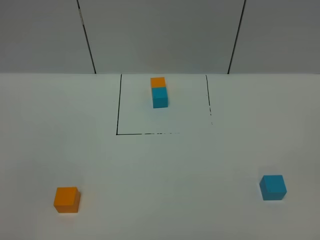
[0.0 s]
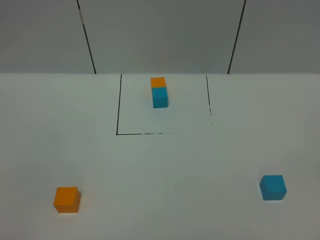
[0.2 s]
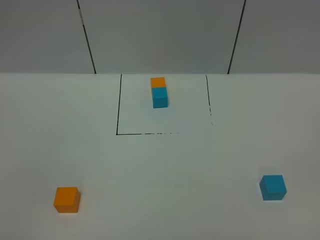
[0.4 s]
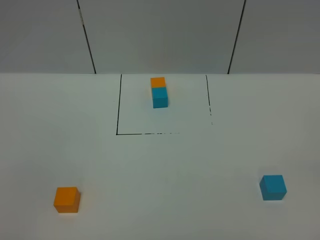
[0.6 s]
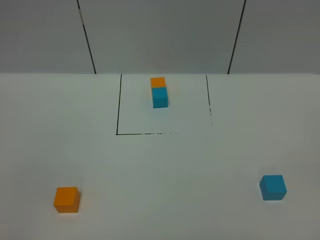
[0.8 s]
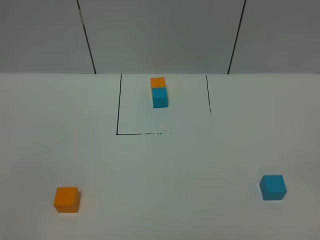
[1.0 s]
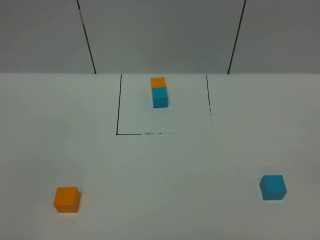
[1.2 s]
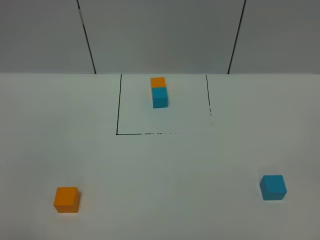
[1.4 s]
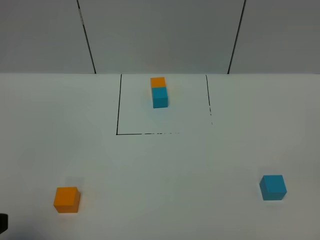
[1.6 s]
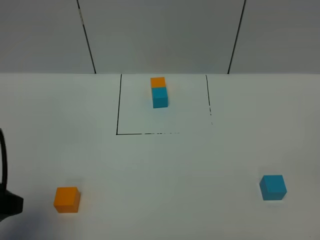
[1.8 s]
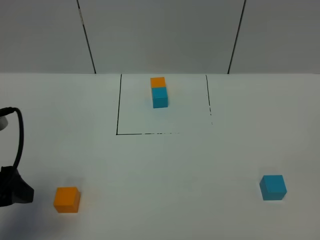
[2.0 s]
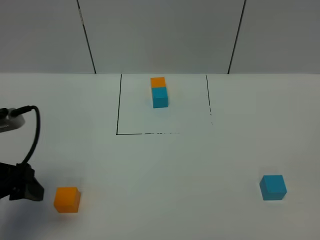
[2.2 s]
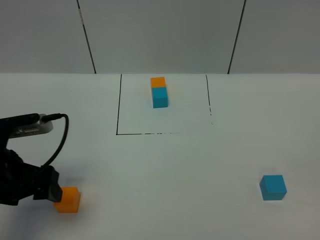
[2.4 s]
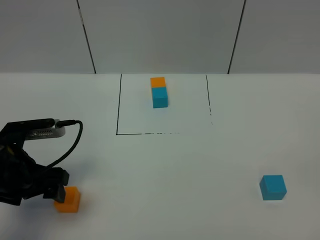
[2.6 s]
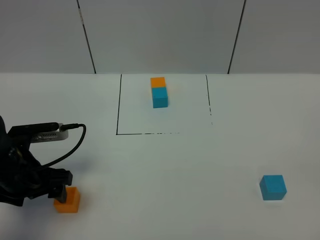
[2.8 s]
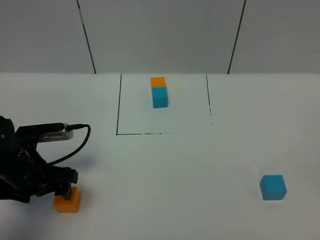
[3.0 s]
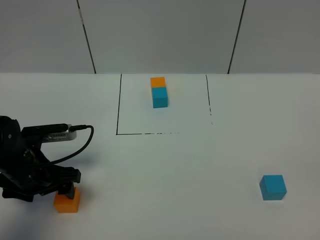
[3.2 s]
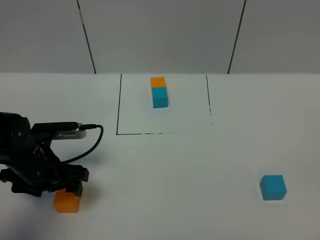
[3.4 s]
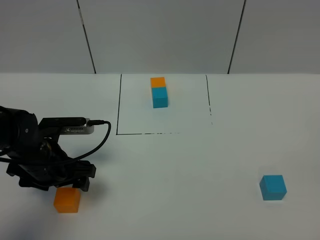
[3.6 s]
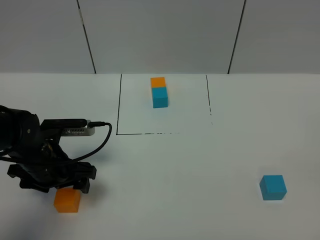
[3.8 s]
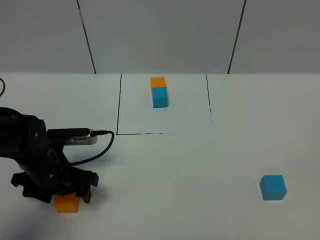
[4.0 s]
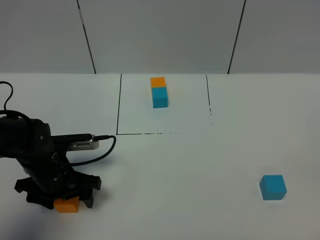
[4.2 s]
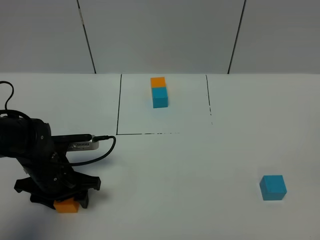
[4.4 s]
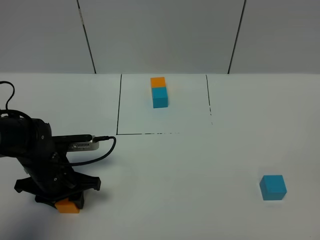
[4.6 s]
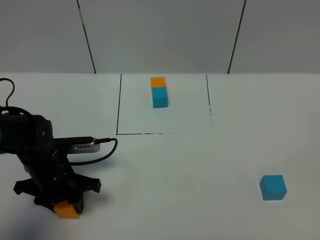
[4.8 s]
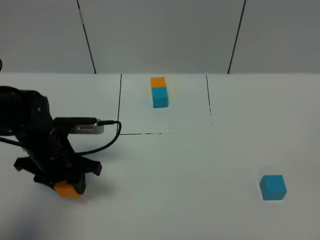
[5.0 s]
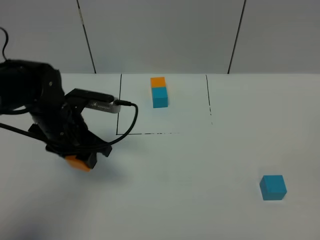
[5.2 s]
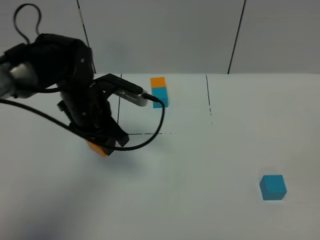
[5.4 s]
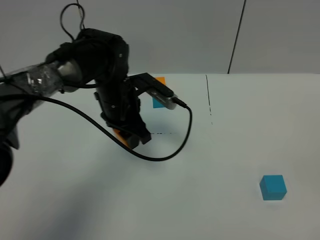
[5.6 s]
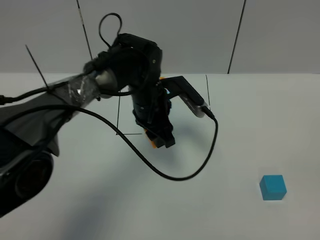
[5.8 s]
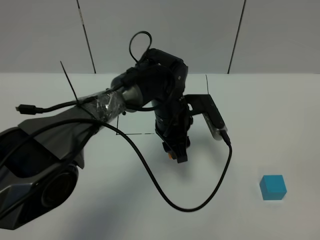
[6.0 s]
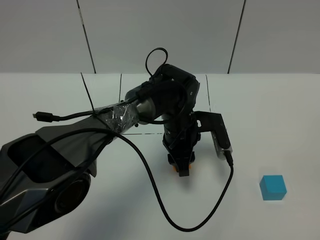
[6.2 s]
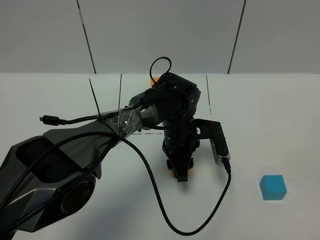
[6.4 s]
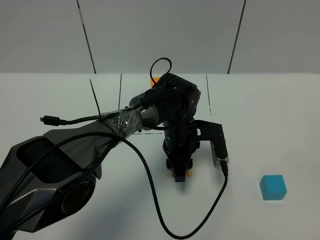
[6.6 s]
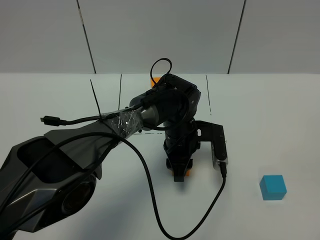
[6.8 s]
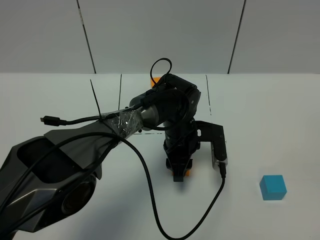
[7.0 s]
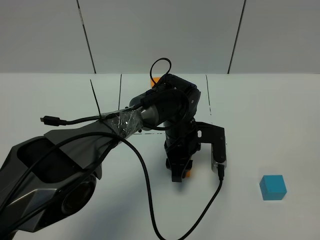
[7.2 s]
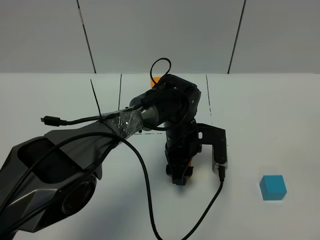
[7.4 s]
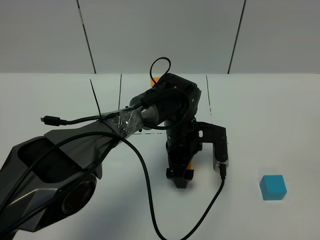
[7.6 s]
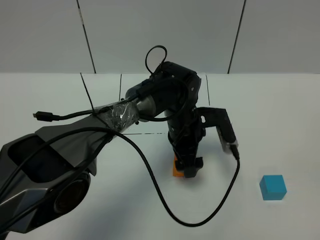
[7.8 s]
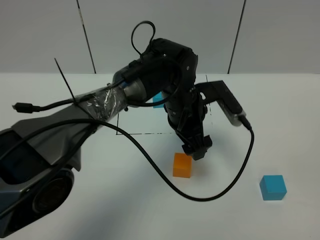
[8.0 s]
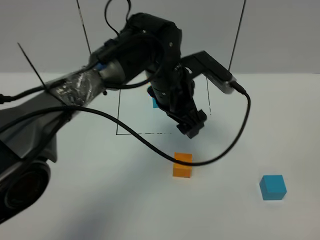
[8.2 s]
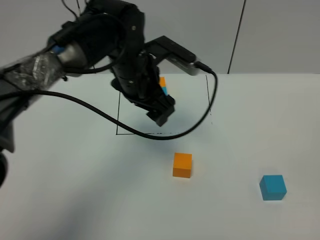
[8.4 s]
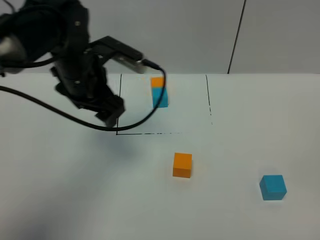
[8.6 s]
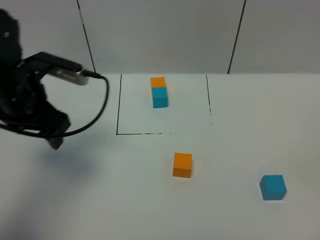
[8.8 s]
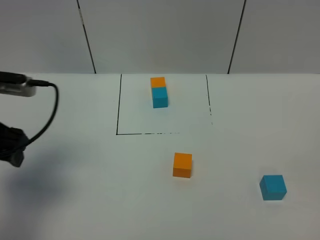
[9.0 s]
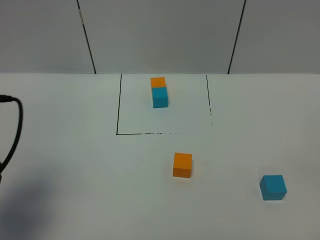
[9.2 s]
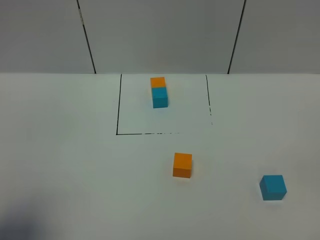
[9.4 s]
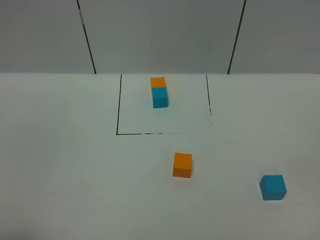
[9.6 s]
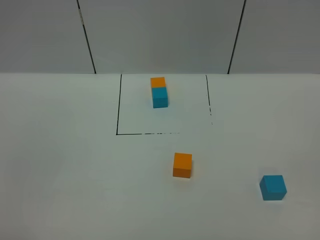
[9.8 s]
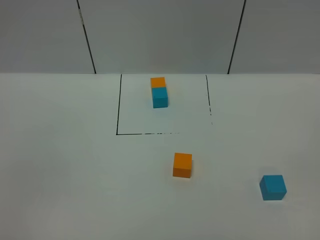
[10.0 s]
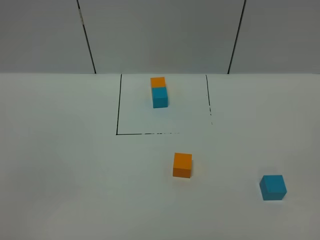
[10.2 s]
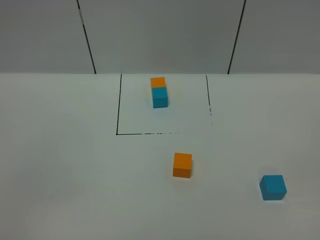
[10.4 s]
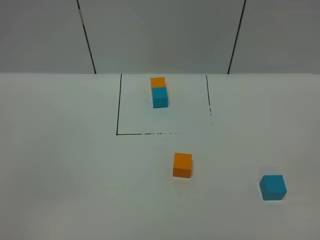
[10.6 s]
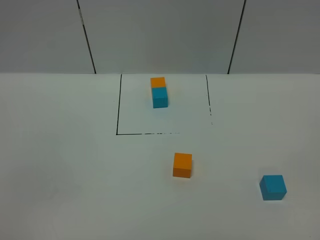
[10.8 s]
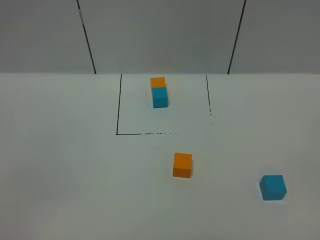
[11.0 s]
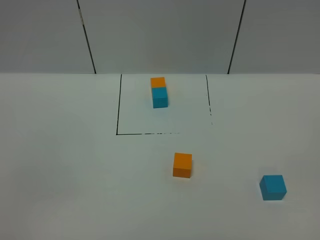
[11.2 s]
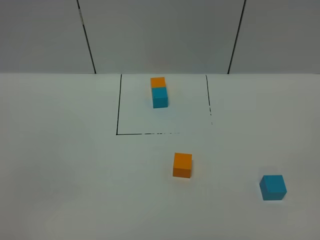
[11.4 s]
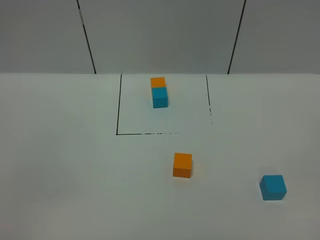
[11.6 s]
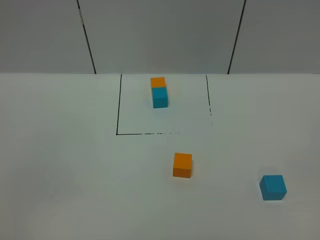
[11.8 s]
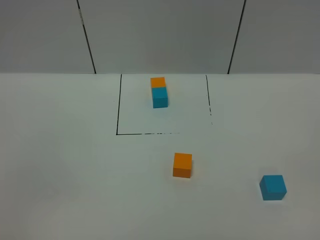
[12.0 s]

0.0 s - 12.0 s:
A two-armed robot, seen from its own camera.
Task of the whole recording: According to the building block template in front, assemble the scattered blocks together.
Step, 1.4 s - 7.6 s: Put the orange cube in the center of the table.
0.0 s - 1.6 s: The left gripper travels forward by approximately 10 cm.
1.6 s - 3.0 s: The left gripper travels forward and downward by roughly 20 cm.
3.0 s - 4.4 s: The left gripper changes place by about 5 cm, and closes up.
4.4 s - 6.0 s: The left gripper is displaced to the right and forward by about 25 cm, and closes up.
6.0 s - 7.6 s: The left gripper opens its fingers.
7.6 s - 9.0 s: The left gripper moves to the left and upward, approximately 35 cm.
9.0 s - 10.4 s: The left gripper is displaced backward by roughly 30 cm.
10.4 s - 12.0 s: The two grippers keep their place.

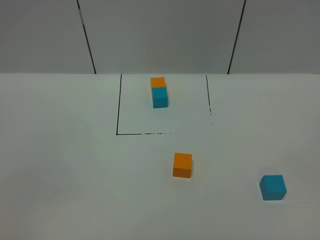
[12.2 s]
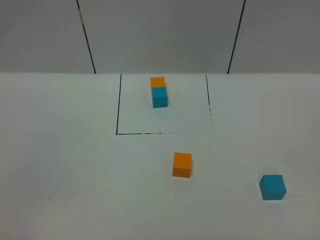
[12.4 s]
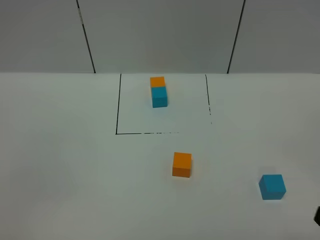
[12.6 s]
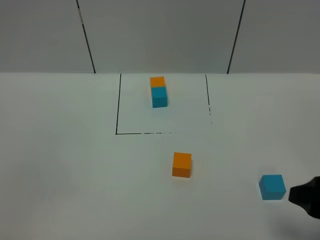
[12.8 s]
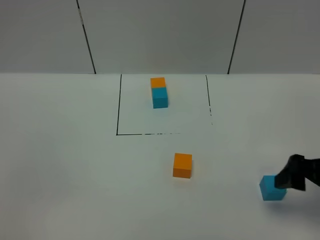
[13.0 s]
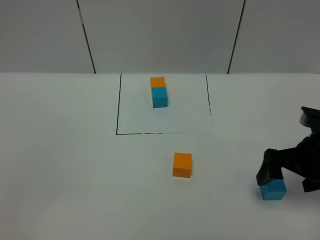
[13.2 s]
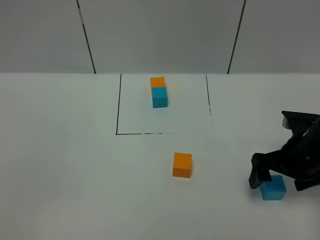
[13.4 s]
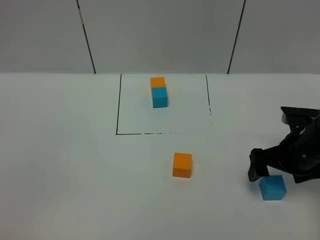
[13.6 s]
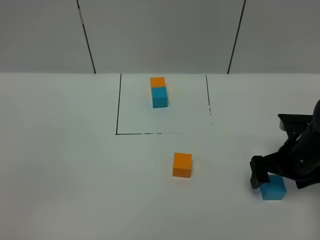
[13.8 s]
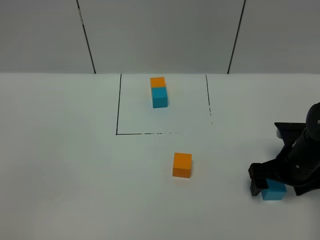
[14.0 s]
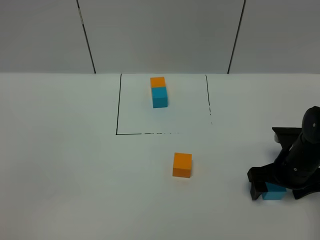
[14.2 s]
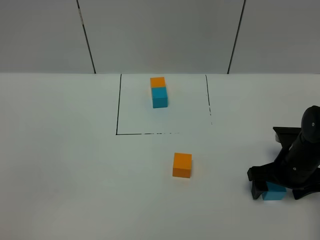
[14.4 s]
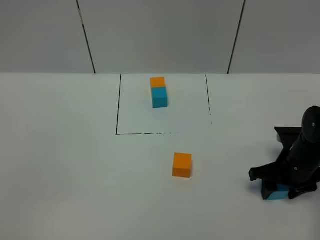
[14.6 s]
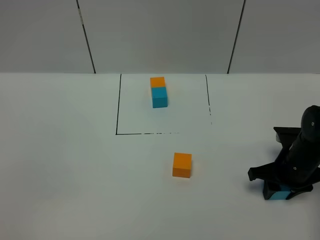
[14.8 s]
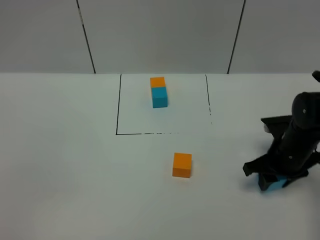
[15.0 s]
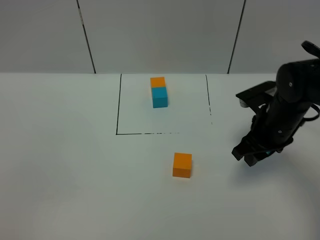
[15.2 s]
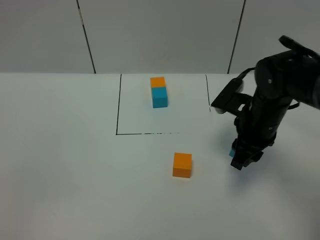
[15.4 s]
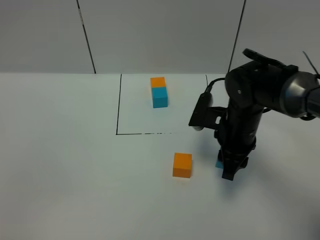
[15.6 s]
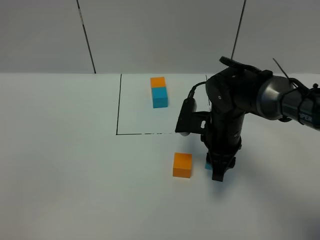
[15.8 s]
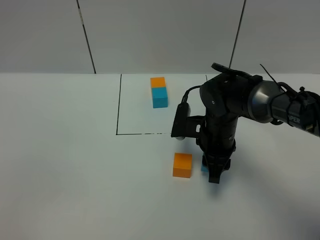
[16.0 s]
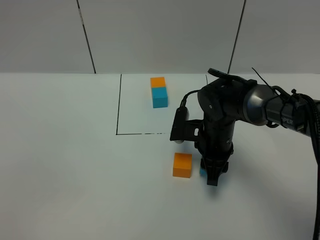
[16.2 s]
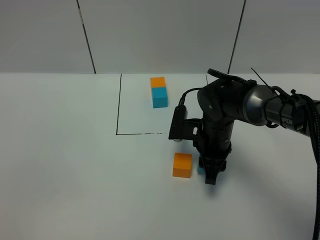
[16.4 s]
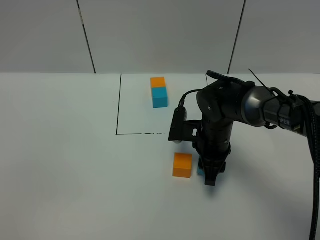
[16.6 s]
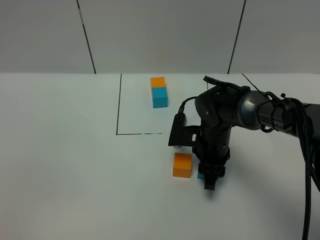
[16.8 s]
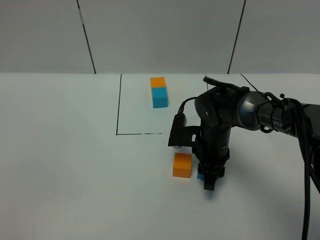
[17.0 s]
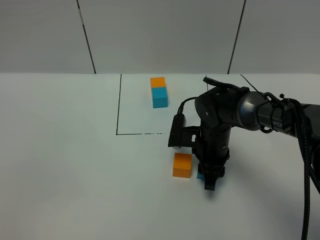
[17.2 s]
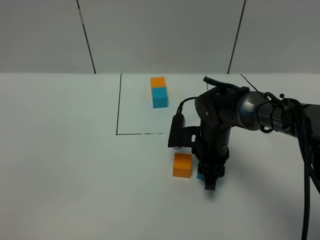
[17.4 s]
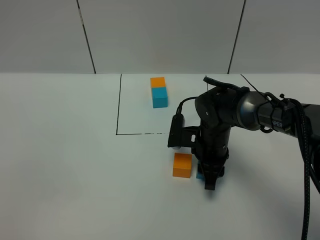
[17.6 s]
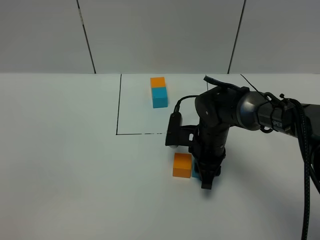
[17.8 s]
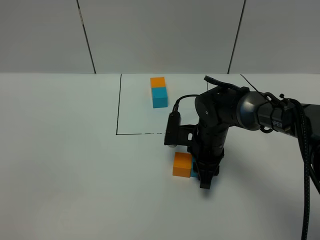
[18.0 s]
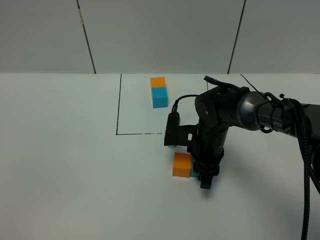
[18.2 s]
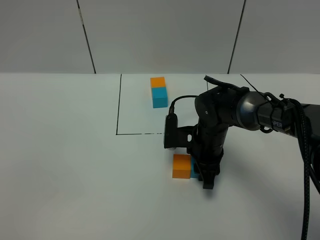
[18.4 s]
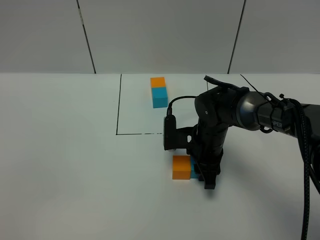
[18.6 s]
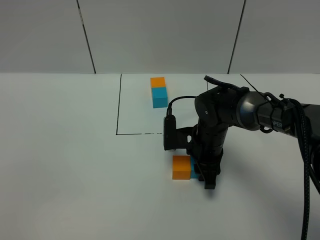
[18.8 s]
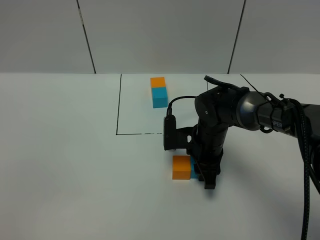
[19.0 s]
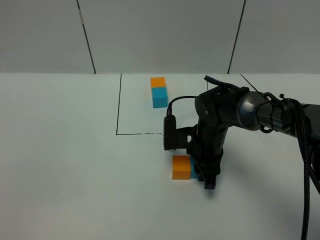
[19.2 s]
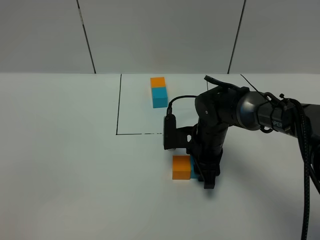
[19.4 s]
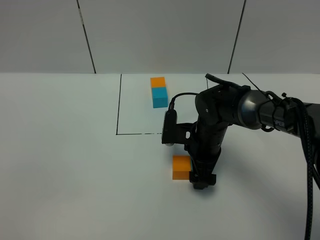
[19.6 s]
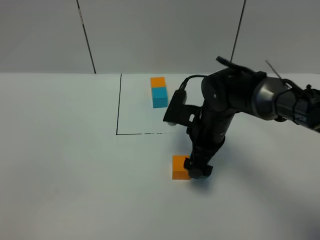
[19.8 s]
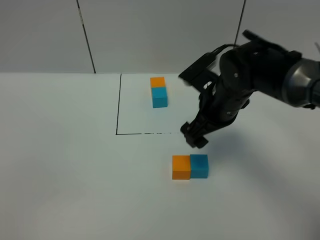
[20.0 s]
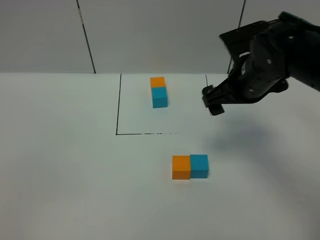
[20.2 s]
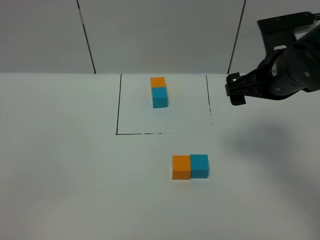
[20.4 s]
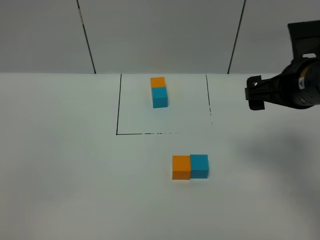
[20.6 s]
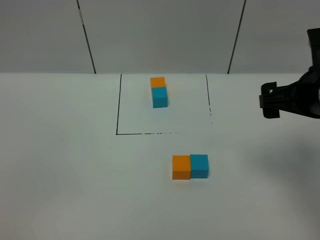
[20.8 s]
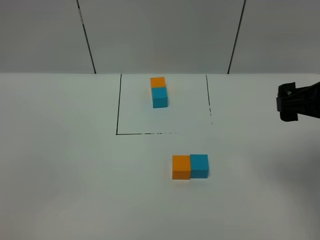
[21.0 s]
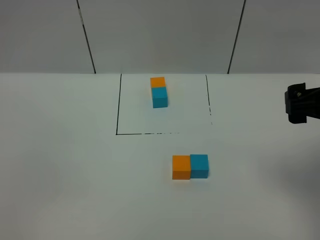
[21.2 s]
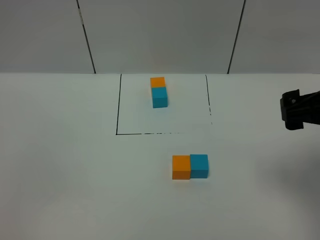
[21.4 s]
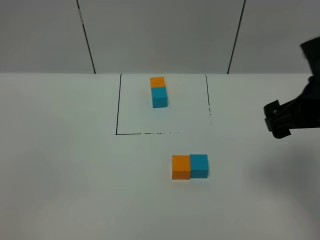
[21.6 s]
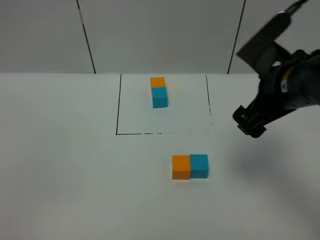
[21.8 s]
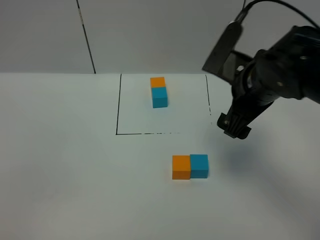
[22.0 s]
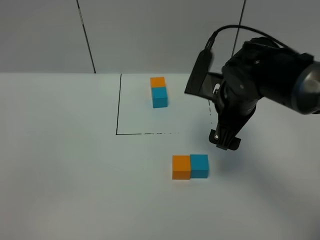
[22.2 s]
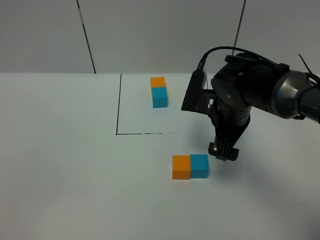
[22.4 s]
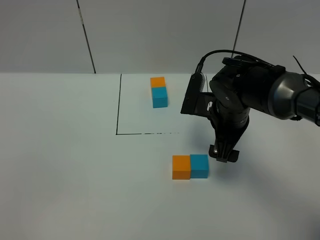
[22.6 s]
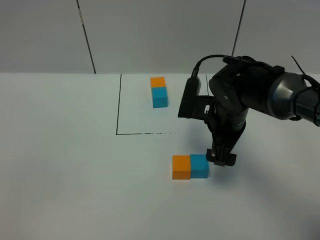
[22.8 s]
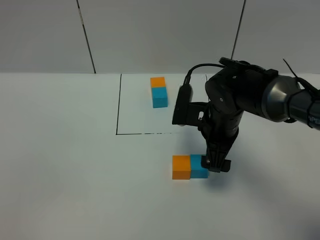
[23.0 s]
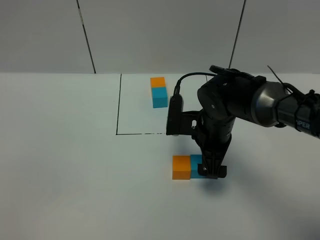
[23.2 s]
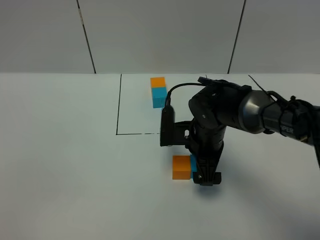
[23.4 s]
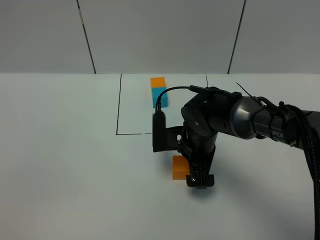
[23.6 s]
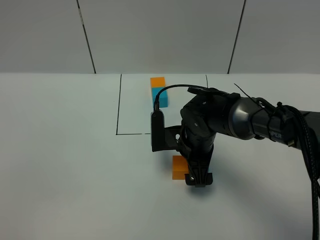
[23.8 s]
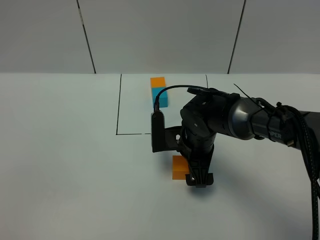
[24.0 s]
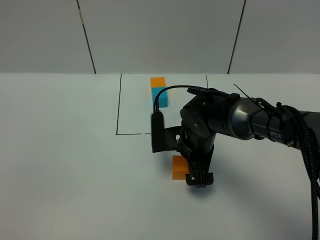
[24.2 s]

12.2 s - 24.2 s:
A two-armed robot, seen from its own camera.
Task of the whole recording: According to the building block template in front, assemble the scattered blocks together.
Step, 12.2 s - 19.6 s: Put the blue cube on the right of the orange cube.
12.2 s - 13.8 s: The right gripper moves forward and downward, some 35 cm.
13.8 s - 15.2 s: The right gripper travels to the left by some 5 cm, and closes its fingers.
15.2 s - 16.6 s: The right gripper is displaced to the left and downward by roughly 10 cm.
16.6 s - 18.2 s: There are only small adjustments of the grippers.
18.2 s - 19.8 s: The right gripper goes about 5 cm upward, and opens up.
19.8 s - 21.2 s: The right gripper is displaced upward, to the right and backward by about 25 cm.
21.2 s - 22.6 s: The right gripper travels downward, forward and to the left by about 20 cm.
22.6 s - 24.2 s: The right gripper goes some 10 cm downward and to the left.
